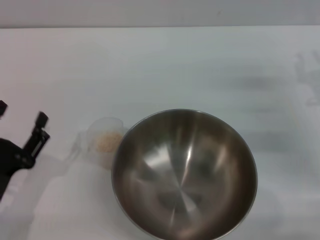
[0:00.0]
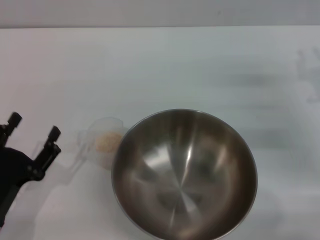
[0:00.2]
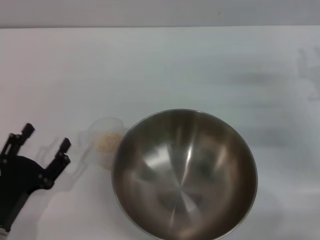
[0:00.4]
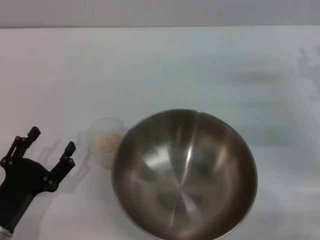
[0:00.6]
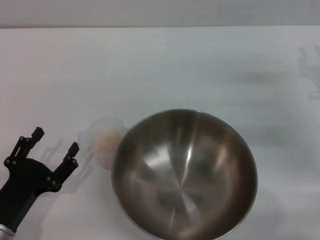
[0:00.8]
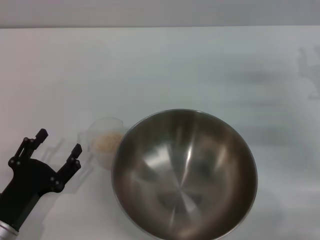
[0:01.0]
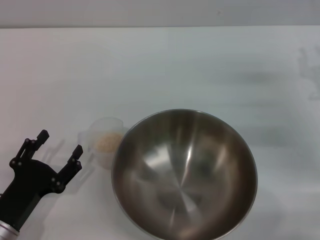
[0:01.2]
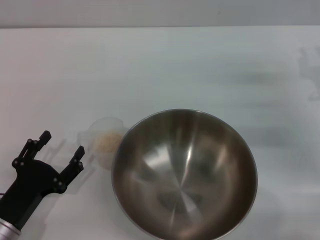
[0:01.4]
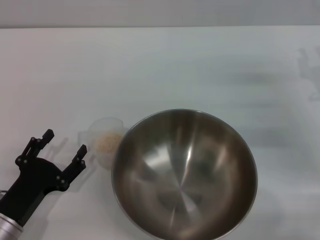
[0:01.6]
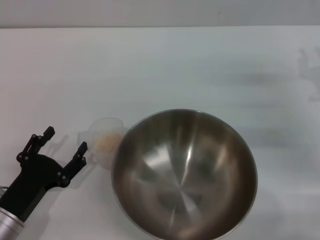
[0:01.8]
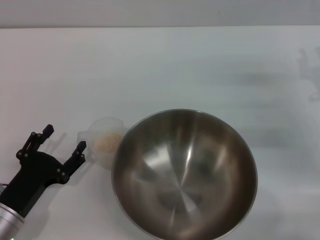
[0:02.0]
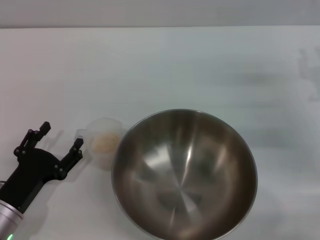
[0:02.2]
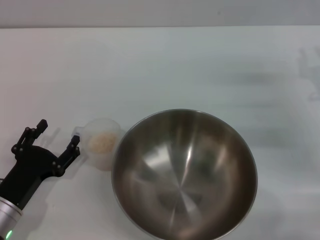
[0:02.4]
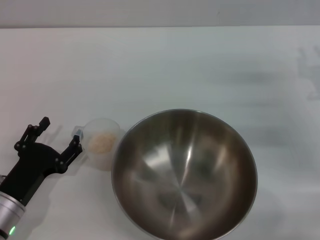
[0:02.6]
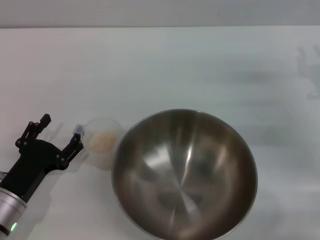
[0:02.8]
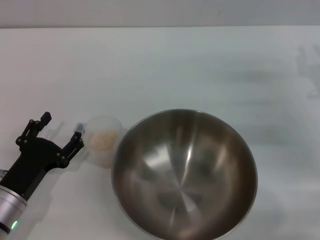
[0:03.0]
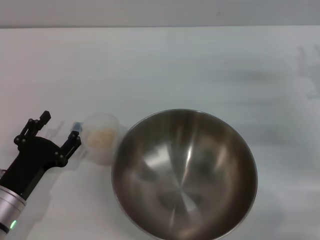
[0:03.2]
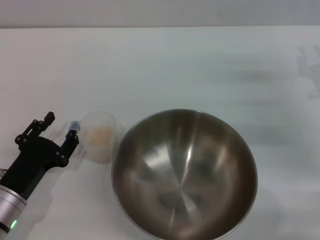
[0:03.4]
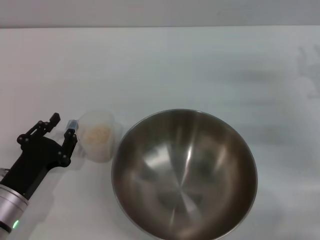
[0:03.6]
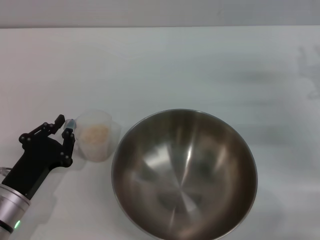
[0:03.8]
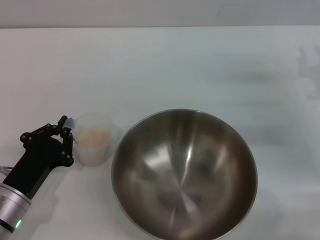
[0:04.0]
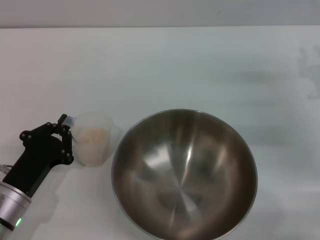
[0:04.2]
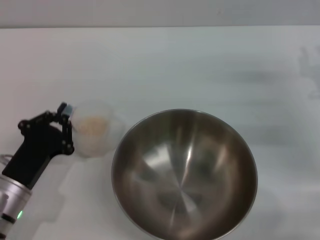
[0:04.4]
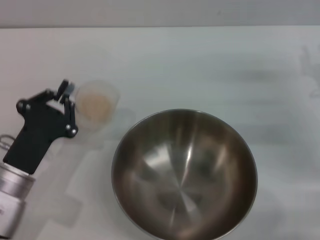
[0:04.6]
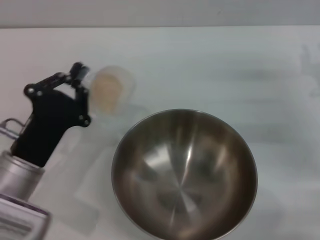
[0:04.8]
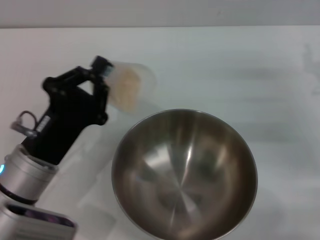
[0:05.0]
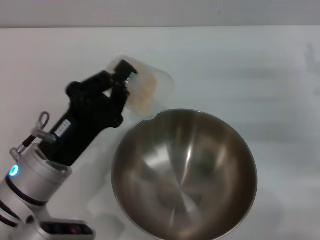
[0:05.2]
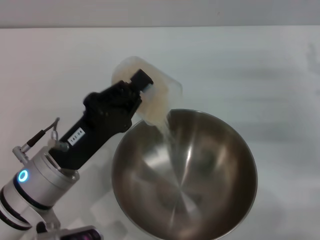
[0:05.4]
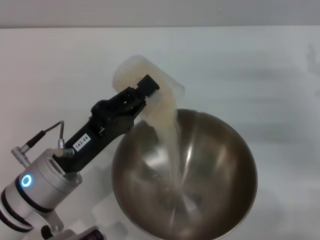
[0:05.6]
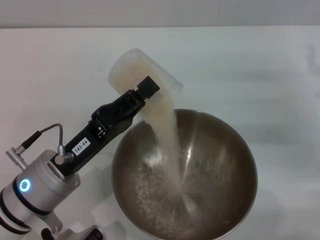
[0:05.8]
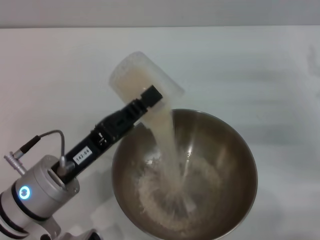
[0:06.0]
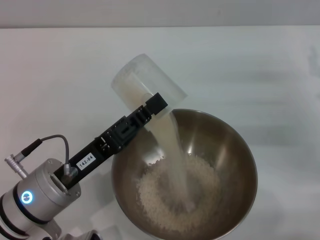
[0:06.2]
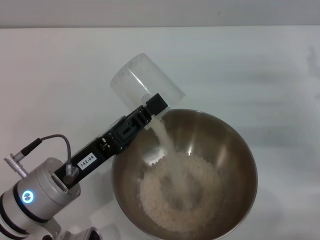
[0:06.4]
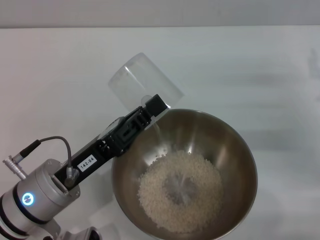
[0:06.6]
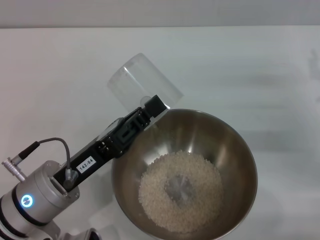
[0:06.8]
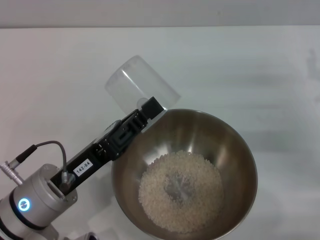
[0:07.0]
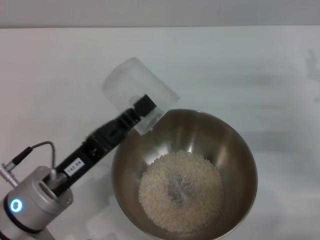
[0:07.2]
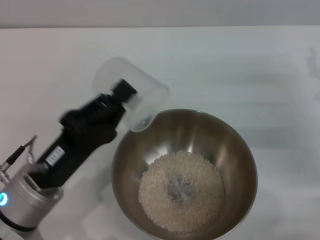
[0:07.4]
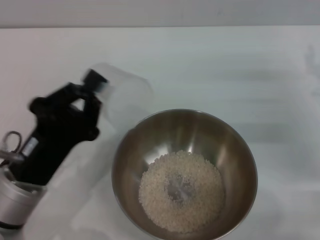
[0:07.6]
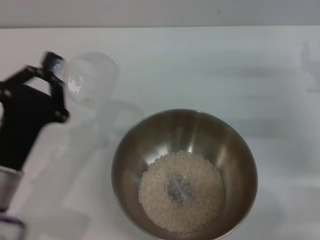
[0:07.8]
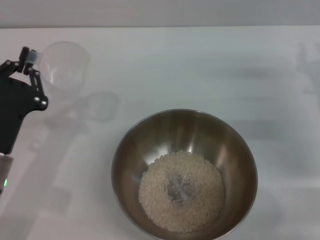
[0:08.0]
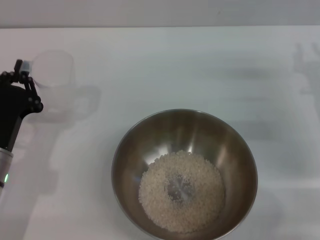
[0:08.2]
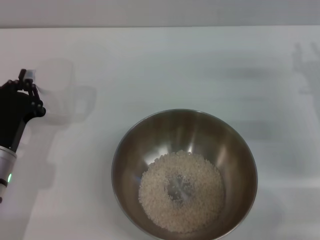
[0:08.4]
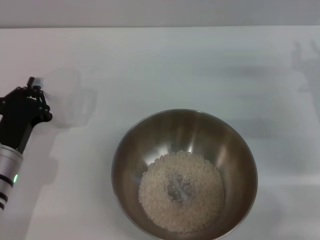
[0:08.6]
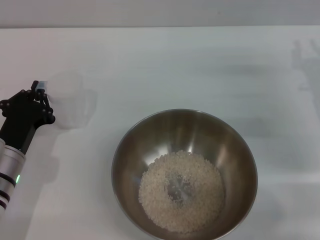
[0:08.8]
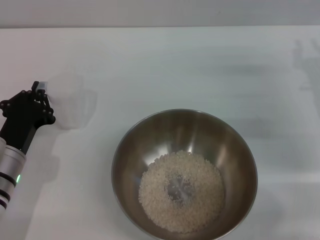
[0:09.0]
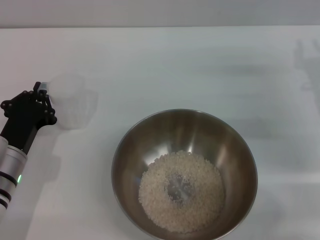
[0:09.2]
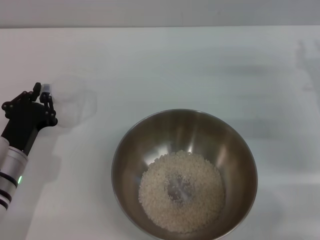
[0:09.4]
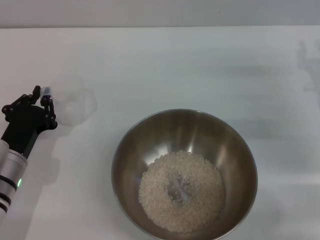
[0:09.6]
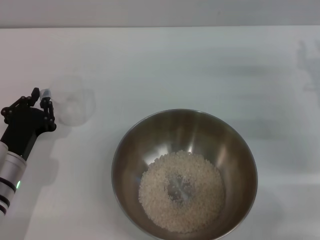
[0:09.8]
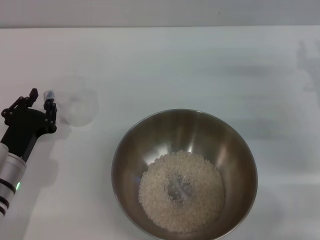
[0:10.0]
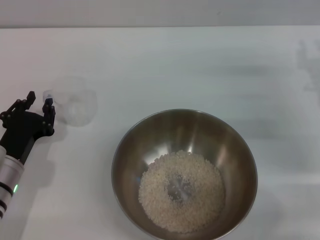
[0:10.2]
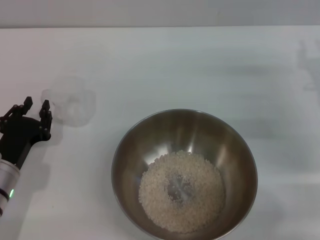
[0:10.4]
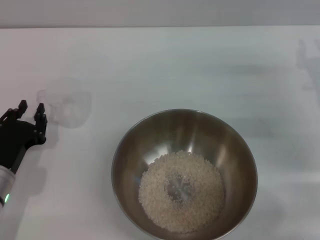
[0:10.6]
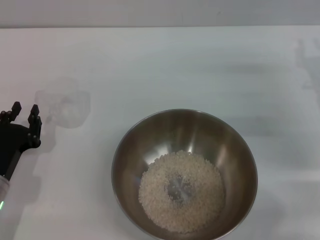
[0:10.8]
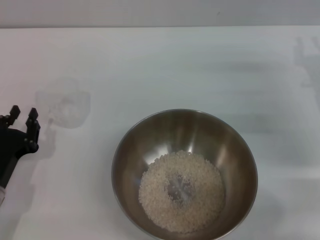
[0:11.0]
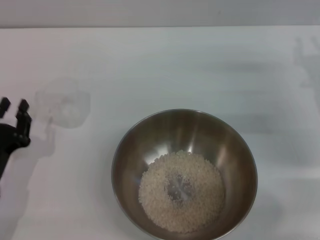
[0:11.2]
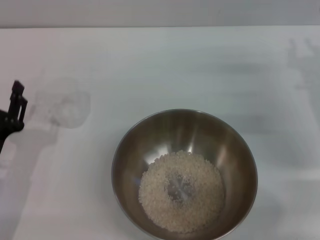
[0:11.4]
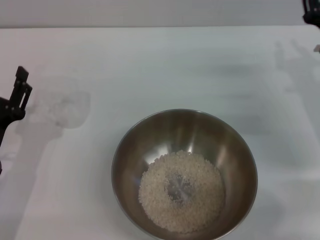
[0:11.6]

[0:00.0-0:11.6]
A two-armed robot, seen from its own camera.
Task of the whole recording: Place the bowl in the middle of the table with one hand and pour the rice from the grain cup into it with the other hand.
Step, 0:00.0 to 0:04.4: Pick up the cup with rice in it with the left gripper.
Step, 0:04.6 to 0:07.2: Pour the rice from the cup into the bowl with the left gripper.
Step, 0:07.4 to 0:10.8: Place the cup on the table with the left gripper.
0:00.0 to 0:02.8: The grippers make only small movements.
0:02.8 to 0:04.4: The left gripper closes.
0:04.4 to 0:05.8: The left gripper goes approximately 10 cm to the right and upward.
0:05.8 to 0:07.2: The grippers make only small movements.
0:07.2 to 0:08.8: The left gripper shifts about 10 cm to the left, forward and downward.
0:08.8 to 0:10.2: The grippers stay close to where they were, moving slightly.
